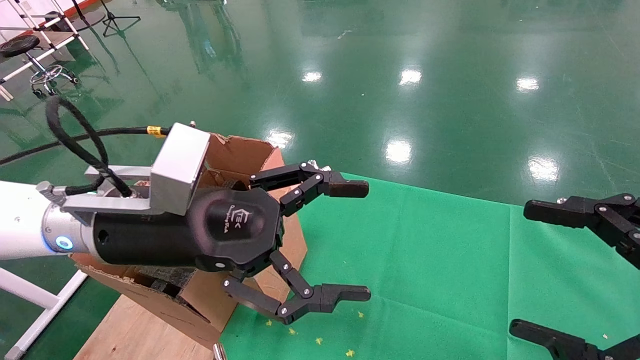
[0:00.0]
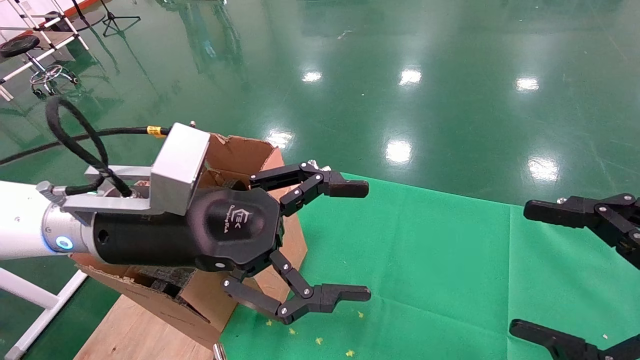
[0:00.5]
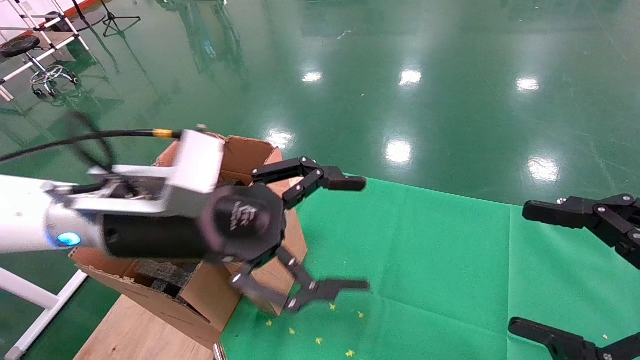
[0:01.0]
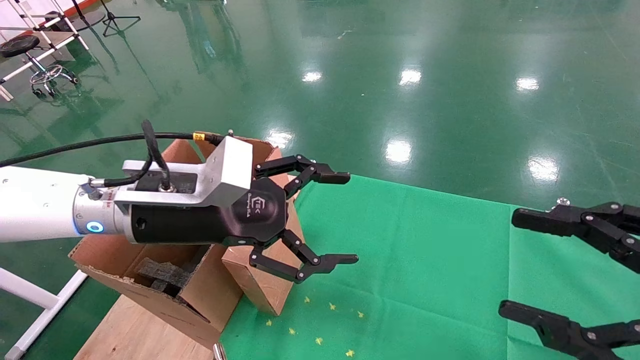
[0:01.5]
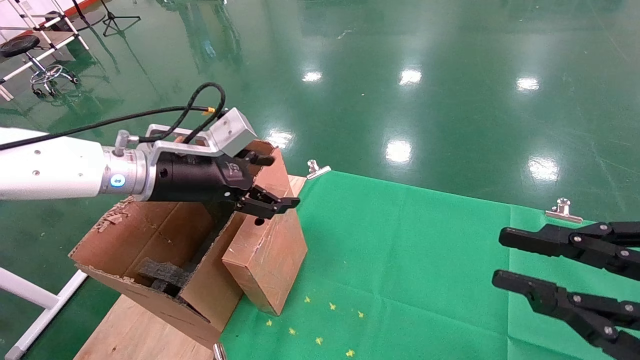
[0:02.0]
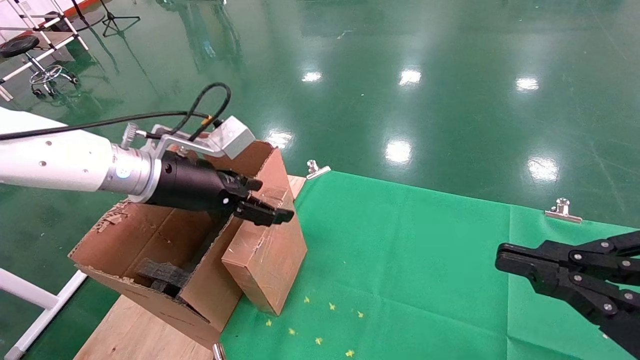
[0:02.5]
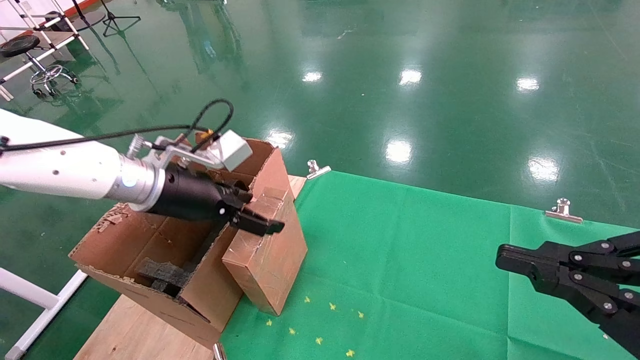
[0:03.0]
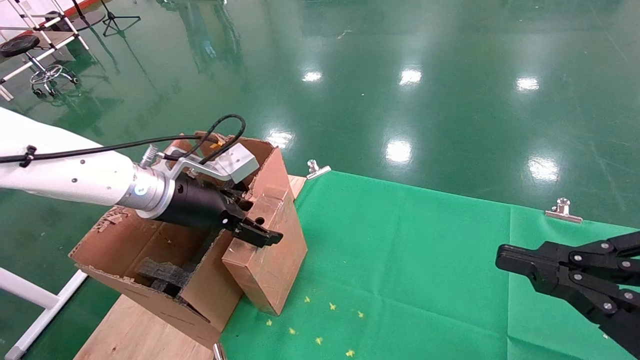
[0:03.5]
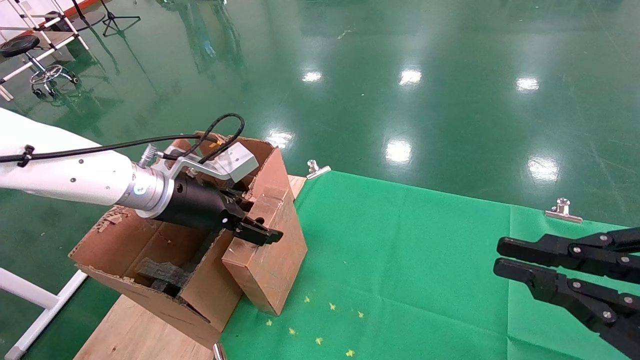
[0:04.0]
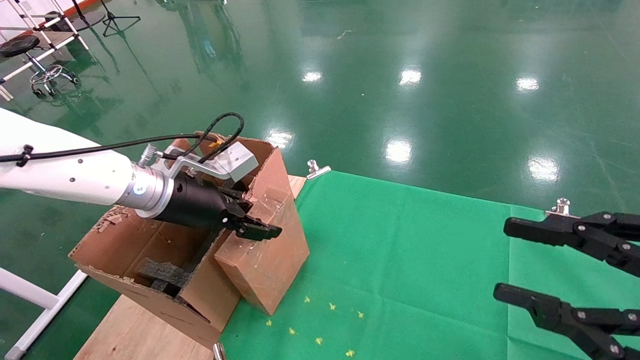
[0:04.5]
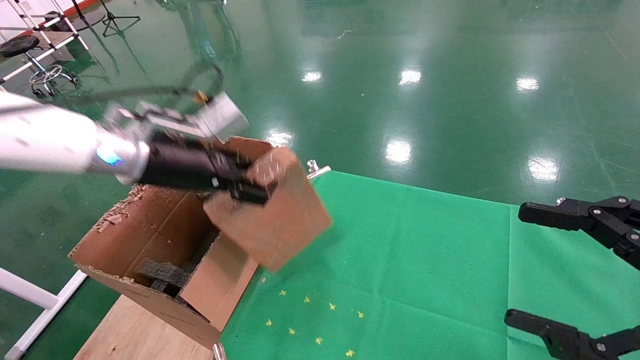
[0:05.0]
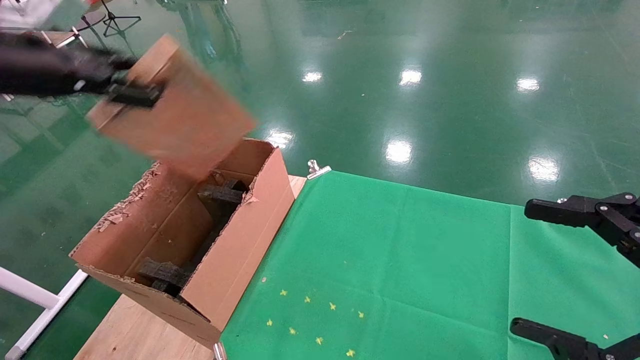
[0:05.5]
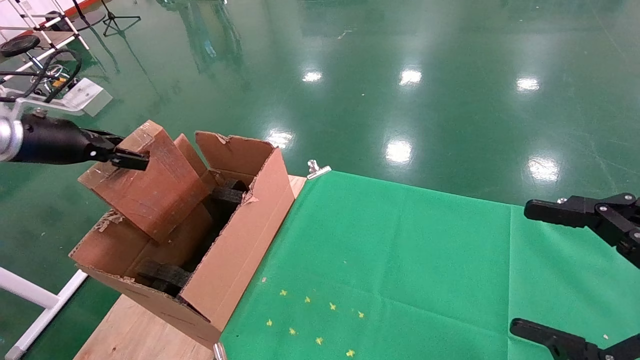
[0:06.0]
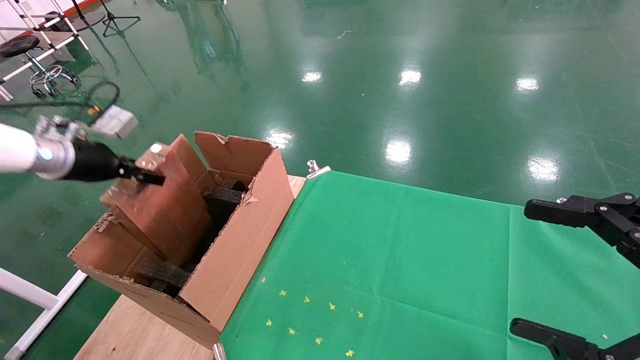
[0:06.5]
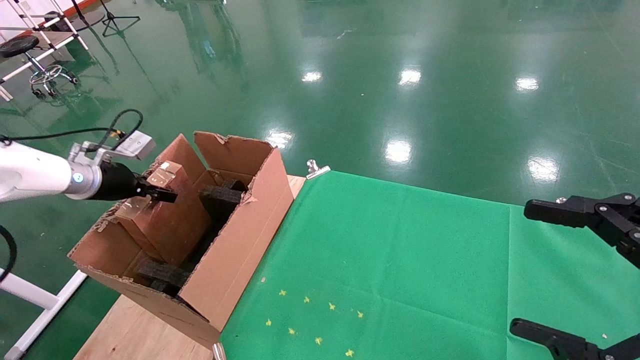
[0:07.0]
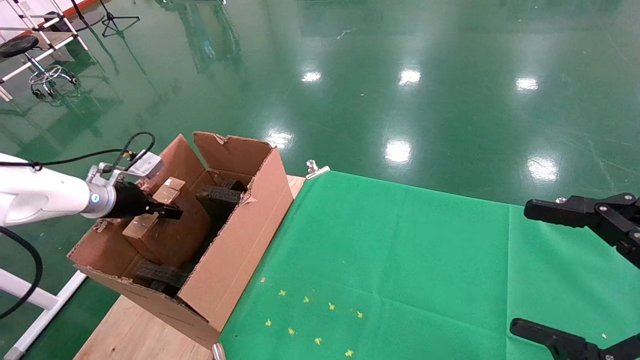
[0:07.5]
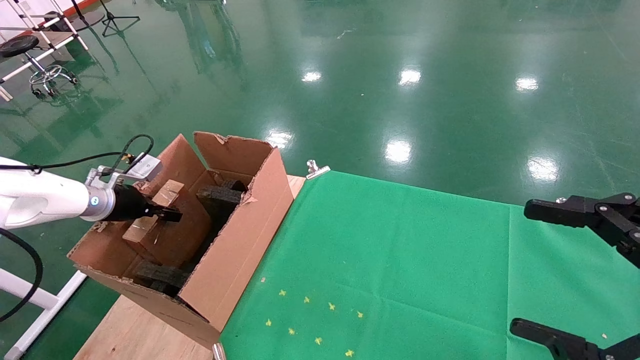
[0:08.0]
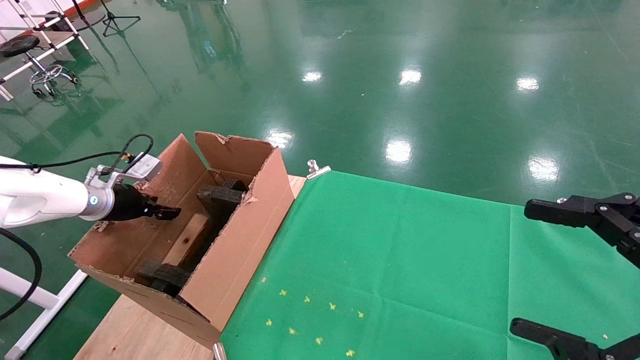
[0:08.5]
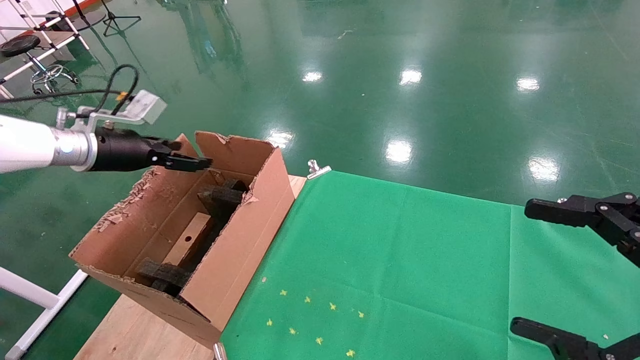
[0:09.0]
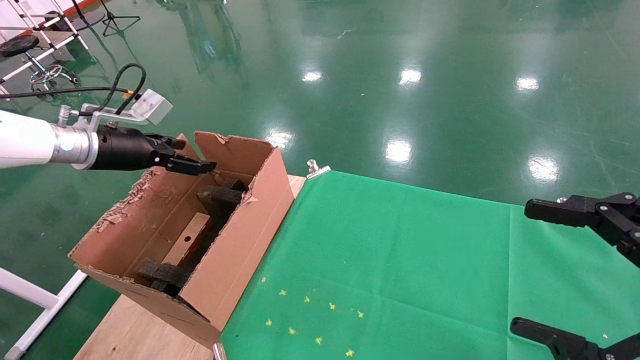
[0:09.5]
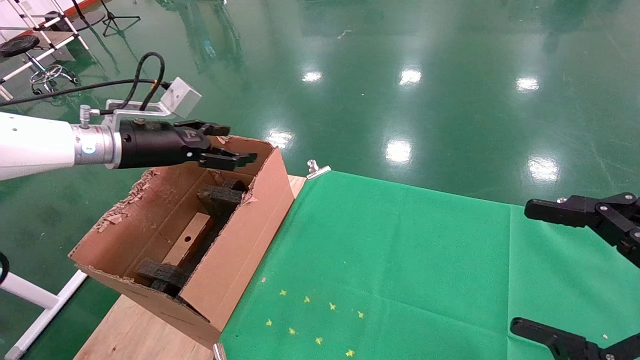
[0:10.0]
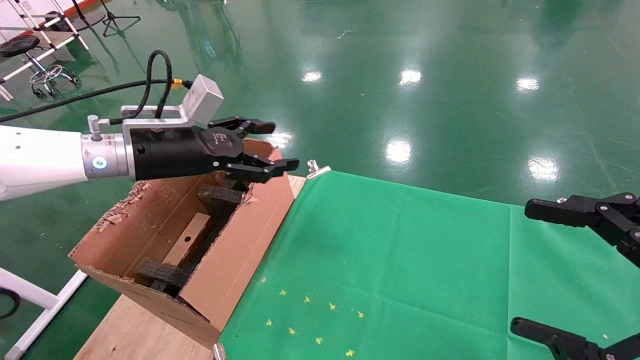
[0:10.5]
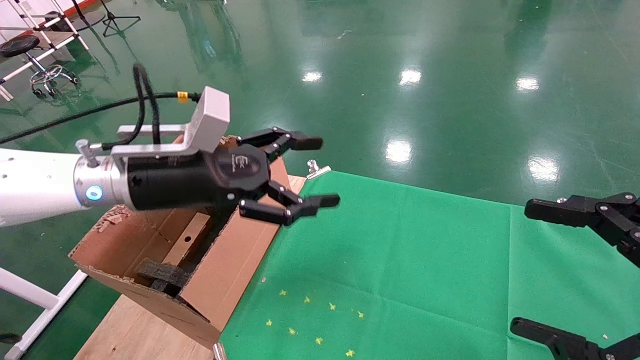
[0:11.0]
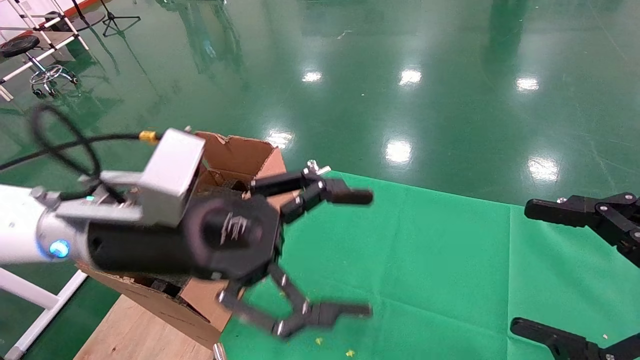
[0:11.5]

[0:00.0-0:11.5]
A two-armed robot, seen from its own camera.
Task of the whole recording: using a robotic arm to pick up a cardboard box and palace it the carton.
Step, 0:01.0 to 0:04.5: Pick up the mouse and the power cord paper box.
Step, 0:05.0 to 0:09.0: Place the mouse and the power cord paper box into the container.
0:00.0 to 0:02.0: The right gripper closes. The left gripper heads forward and to the left, covering approximately 10 cm.
0:04.0 to 0:06.0: The left gripper shifts roughly 20 cm to the left, and closes up, while the right gripper opens up.
0:06.0 to 0:07.5: The left gripper is displaced downward and forward by some 15 cm.
0:07.5 to 0:09.5: The left gripper shifts approximately 10 cm upward and to the right, and opens its fingers.
0:09.5 to 0:11.5: The left gripper is displaced to the right and backward by about 25 cm.

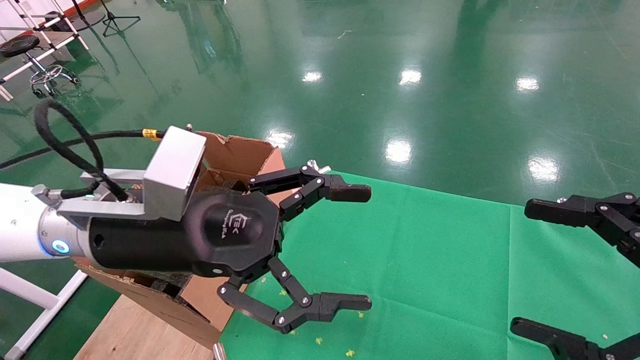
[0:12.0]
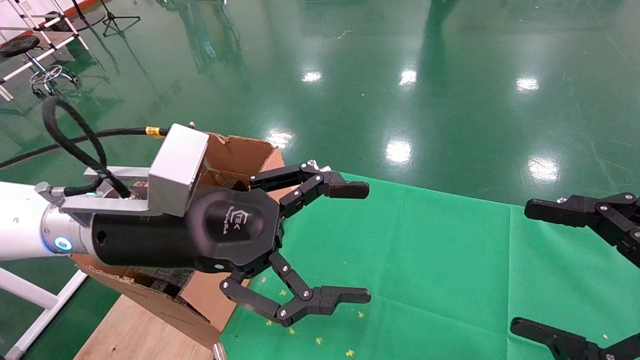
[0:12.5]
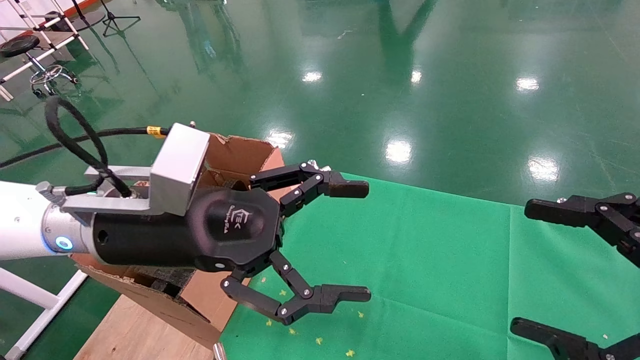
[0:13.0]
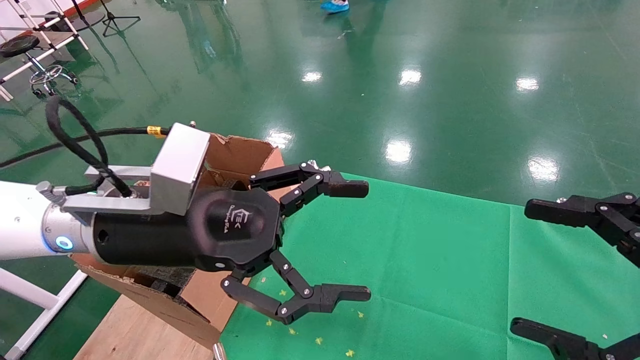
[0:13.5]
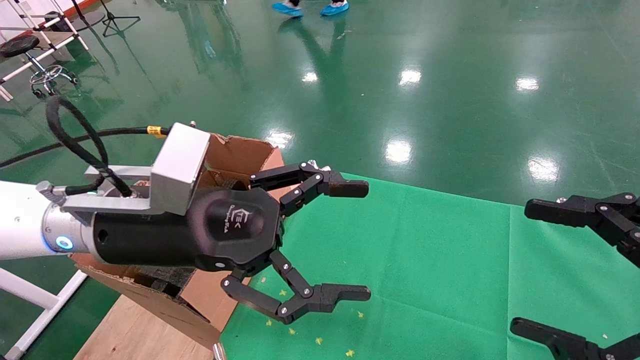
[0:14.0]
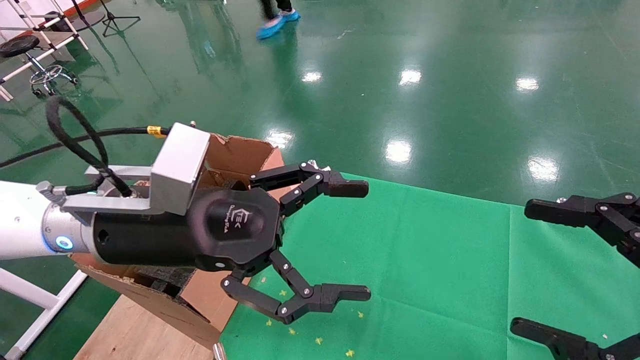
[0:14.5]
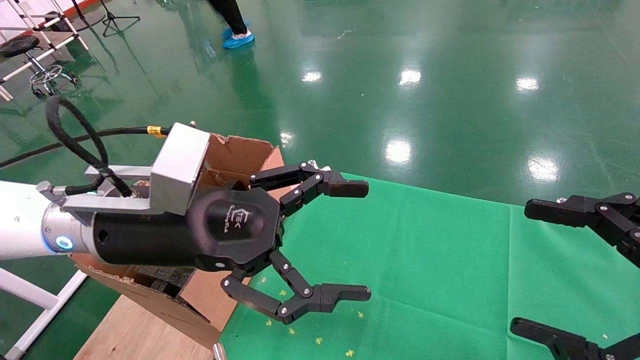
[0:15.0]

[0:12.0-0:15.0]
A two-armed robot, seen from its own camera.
Task of the whole recording: using a robotic arm to pick up a cardboard box and palace it the carton.
0:12.0 to 0:15.0: The two grippers keep their place.

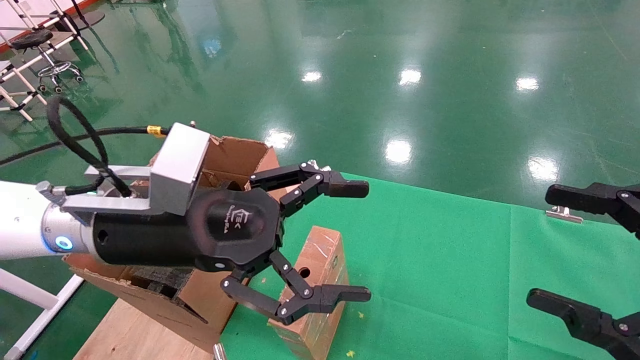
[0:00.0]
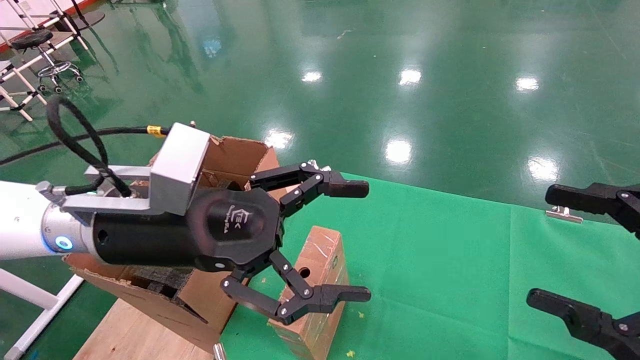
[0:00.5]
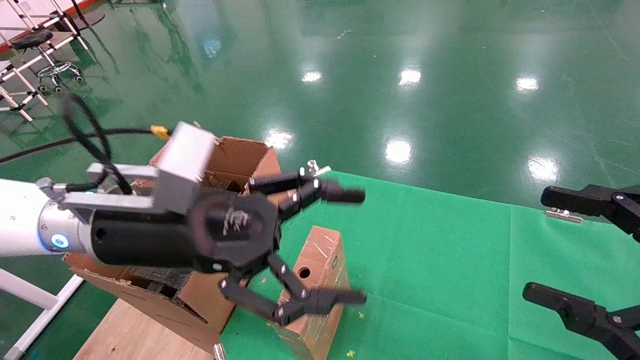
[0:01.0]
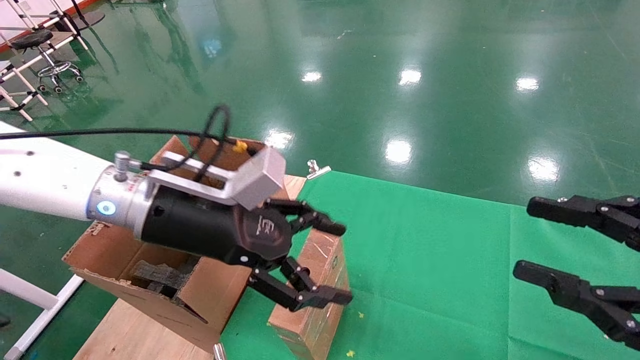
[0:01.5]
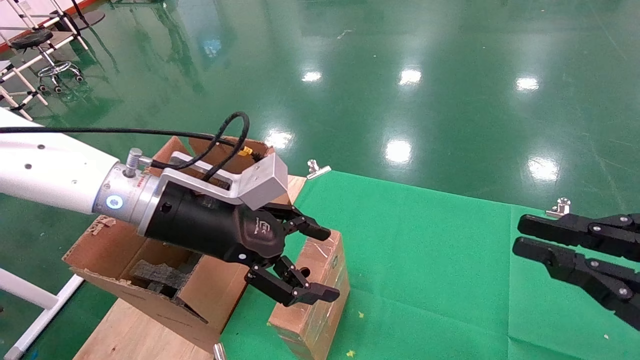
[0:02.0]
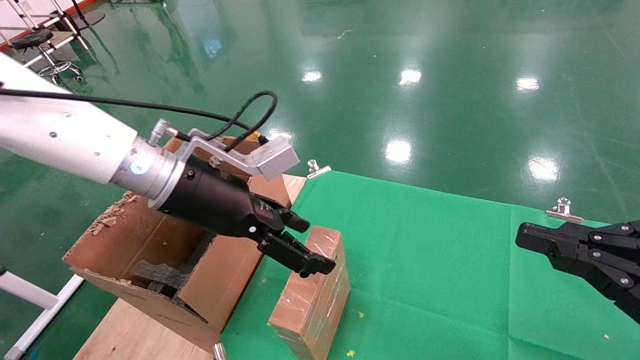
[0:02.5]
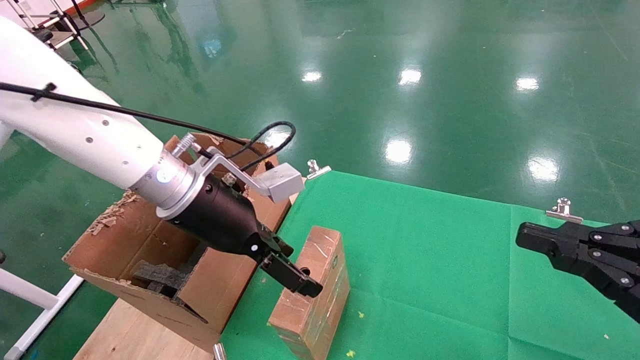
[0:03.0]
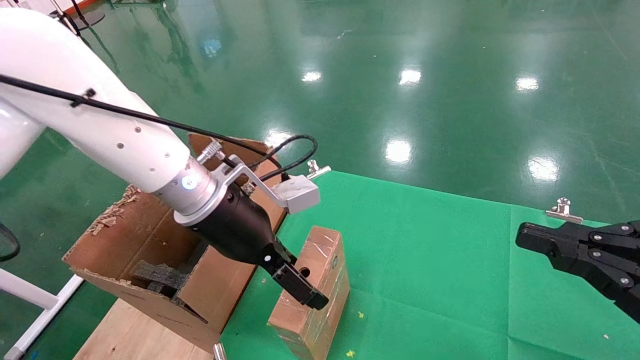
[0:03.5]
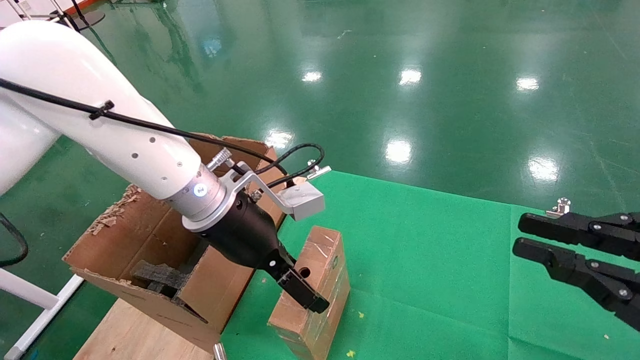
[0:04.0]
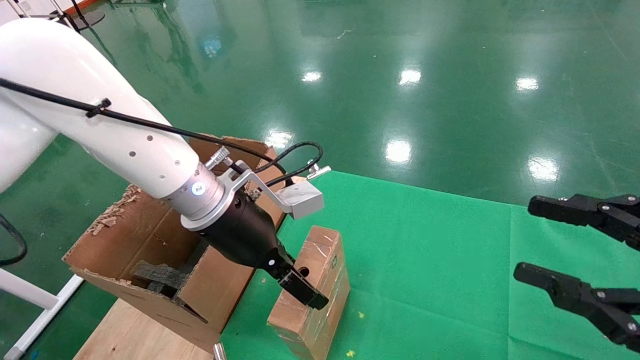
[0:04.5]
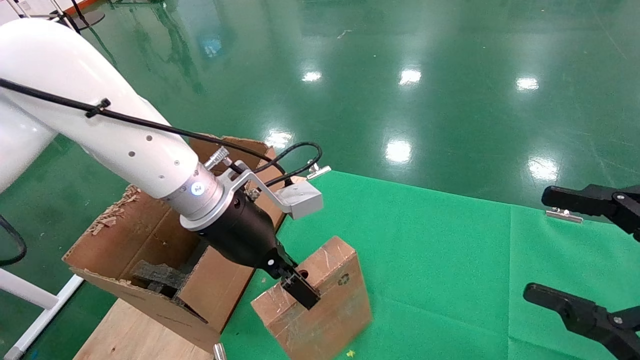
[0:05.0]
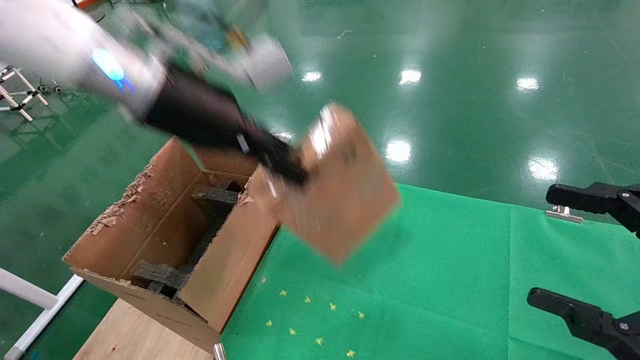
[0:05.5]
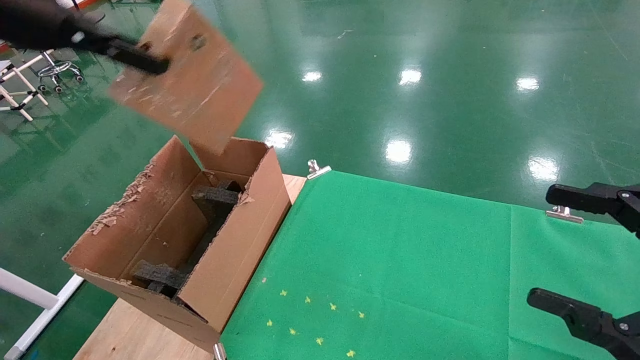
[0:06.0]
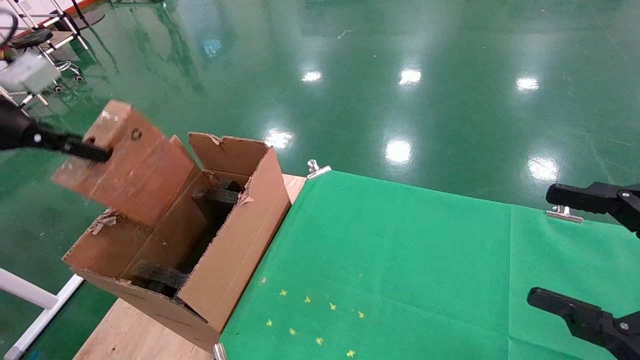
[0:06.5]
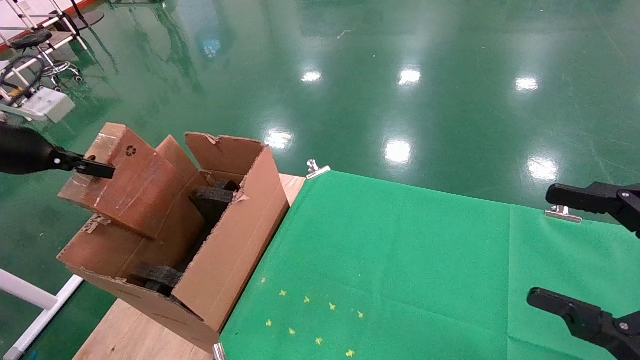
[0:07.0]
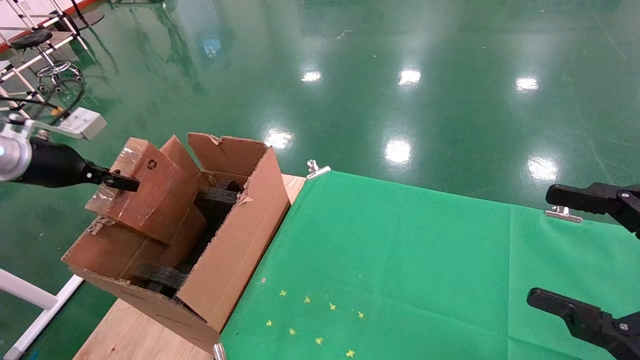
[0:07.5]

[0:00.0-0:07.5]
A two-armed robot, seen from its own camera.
Task of the whole recording: using a robotic arm to pick up a cardboard box and palace it the carton.
Step, 0:01.5 to 0:04.5: Pick up the mouse and the power cord paper box.
0:00.0 to 0:02.0: The left gripper shifts some 5 cm forward; the right gripper closes its fingers.
0:02.0 to 0:04.0: The left gripper changes place by about 5 cm.
0:04.0 to 0:05.5: The right gripper opens. The left gripper shifts about 15 cm upward, and closes up.
0:05.5 to 0:07.5: The left gripper shifts some 30 cm to the left and downward.
